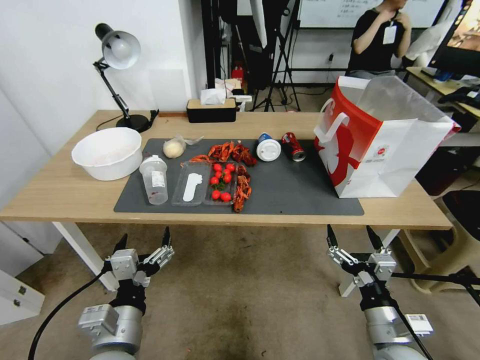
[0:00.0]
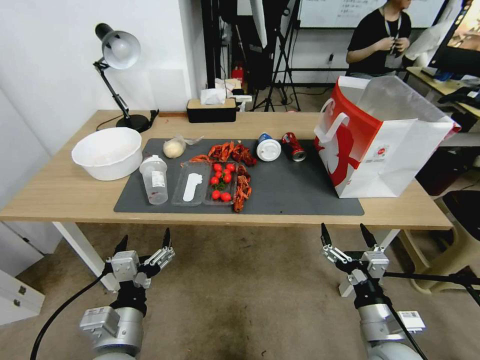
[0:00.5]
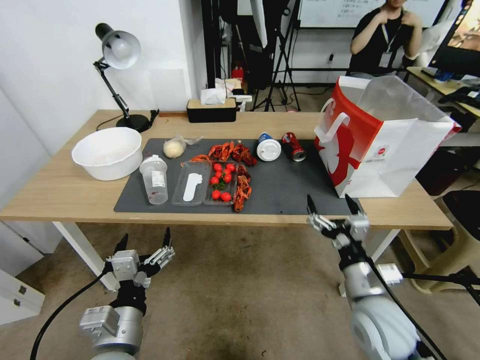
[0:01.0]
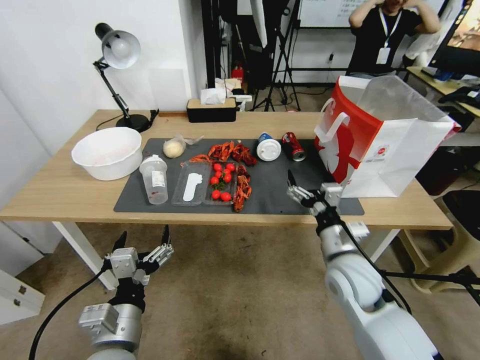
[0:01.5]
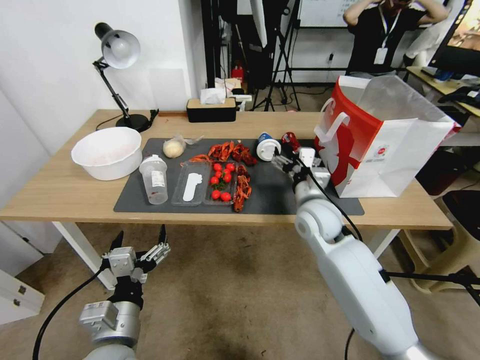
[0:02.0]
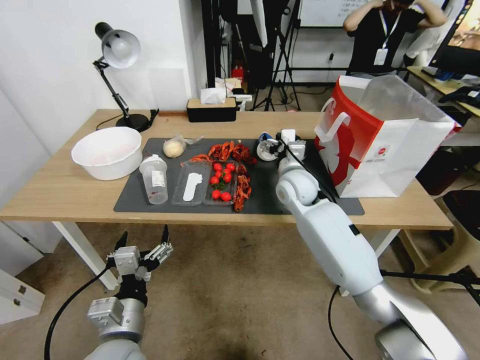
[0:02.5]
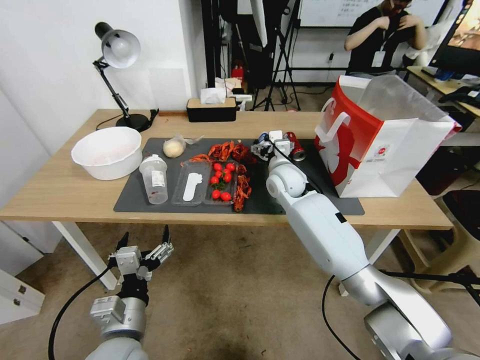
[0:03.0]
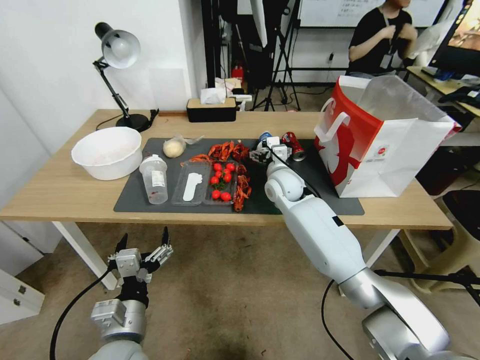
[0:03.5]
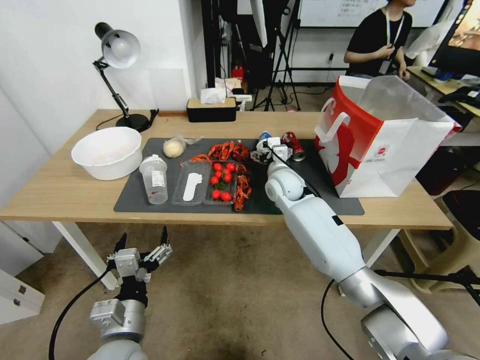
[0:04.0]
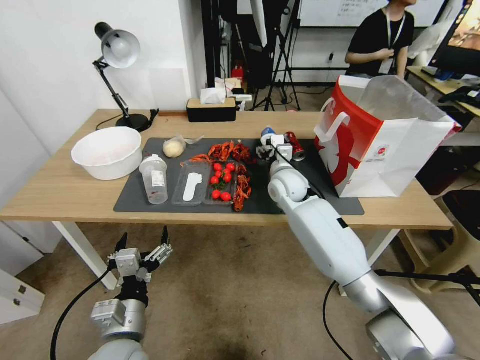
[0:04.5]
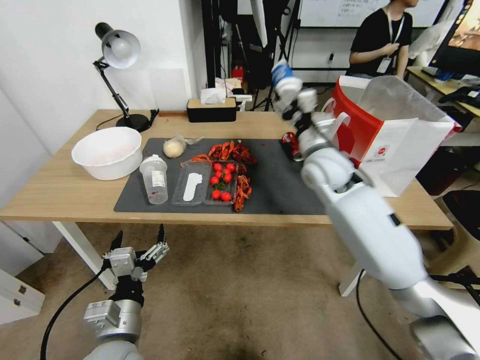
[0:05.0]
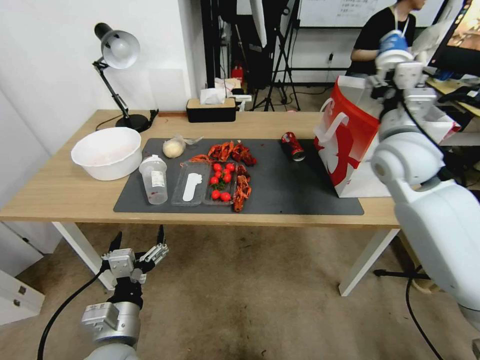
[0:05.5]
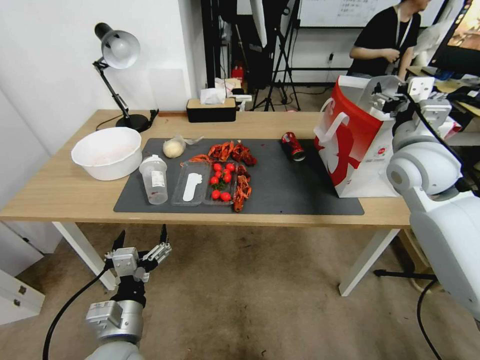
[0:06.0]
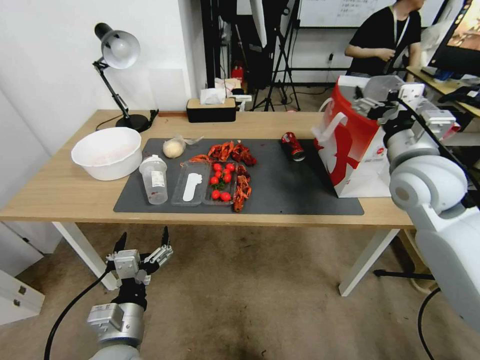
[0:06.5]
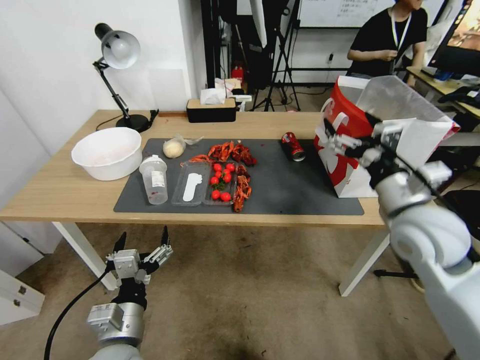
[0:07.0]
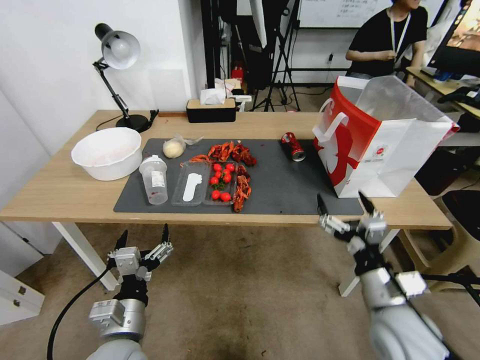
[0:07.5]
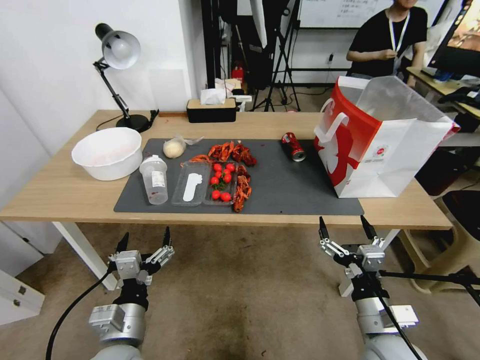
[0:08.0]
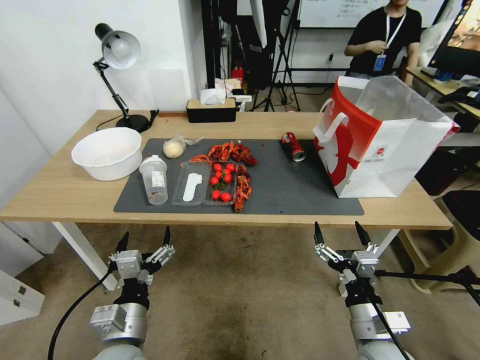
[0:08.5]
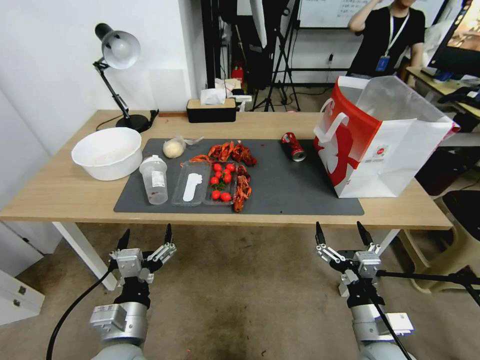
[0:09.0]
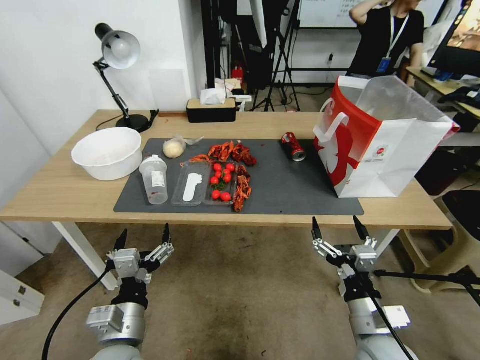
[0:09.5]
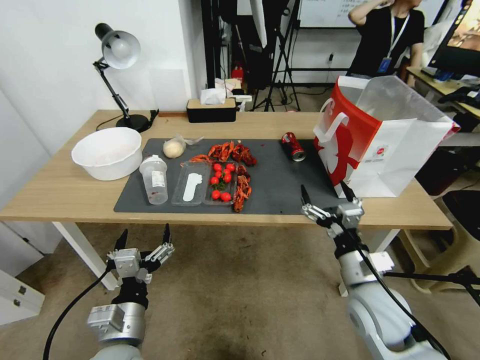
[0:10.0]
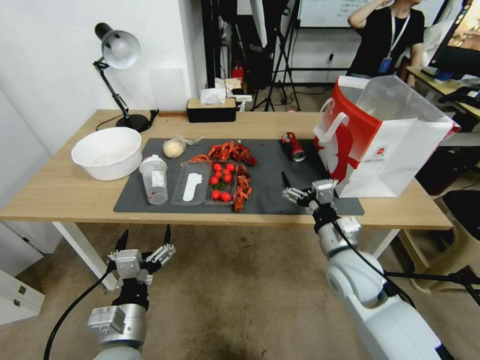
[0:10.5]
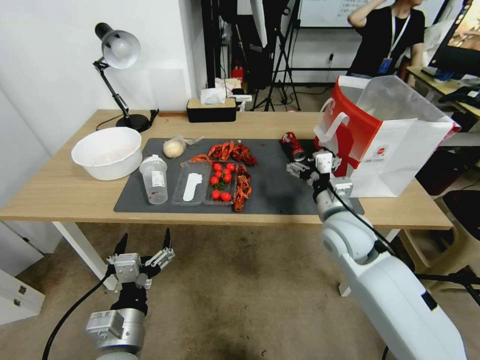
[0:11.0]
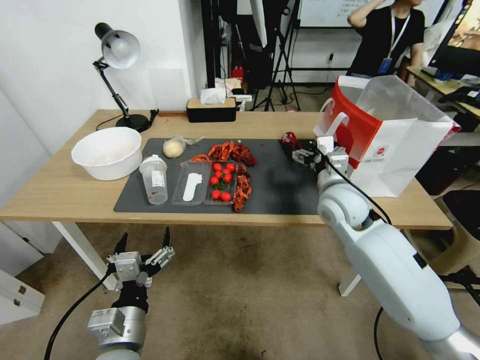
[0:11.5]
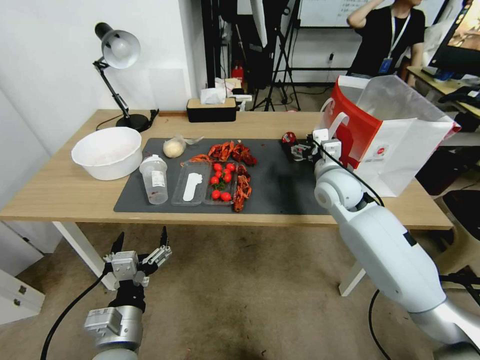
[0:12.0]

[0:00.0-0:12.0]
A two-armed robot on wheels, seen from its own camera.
0:00.0 to 0:02.0: The right gripper moves forward and to the left, approximately 20 cm.
0:02.0 to 0:04.0: The right gripper goes some 20 cm forward and to the left.
0:04.0 to 0:06.0: The right gripper moves to the right, upward and backward, about 30 cm.
0:06.0 to 0:08.0: The right gripper goes some 35 cm backward and downward.
0:08.0 to 0:10.0: The right gripper travels forward by some 5 cm.
0:10.0 to 0:12.0: The right gripper heads forward and upward, covering about 25 cm.

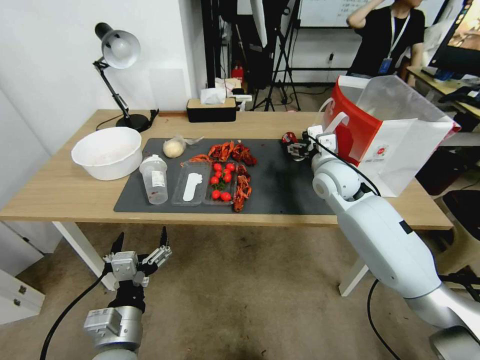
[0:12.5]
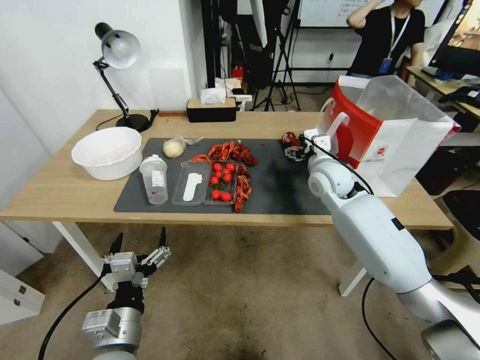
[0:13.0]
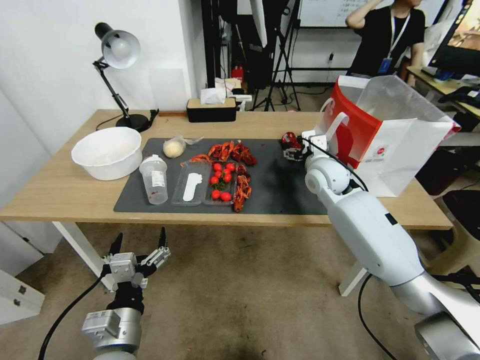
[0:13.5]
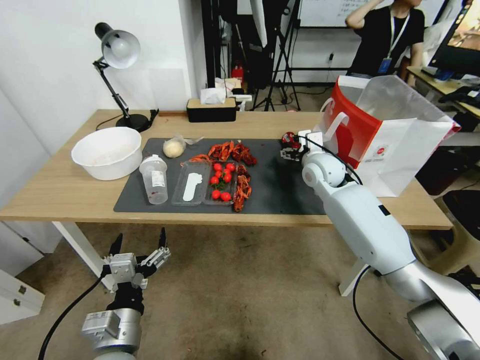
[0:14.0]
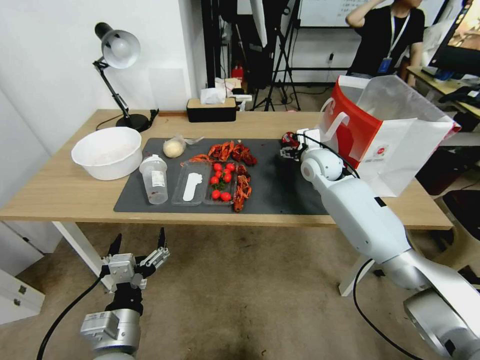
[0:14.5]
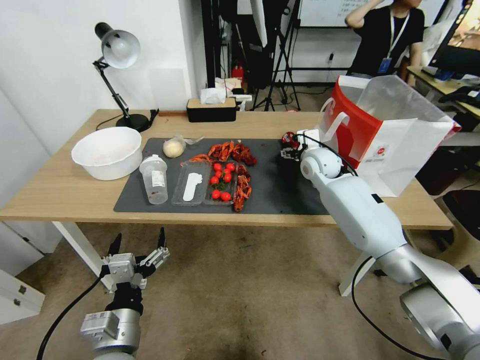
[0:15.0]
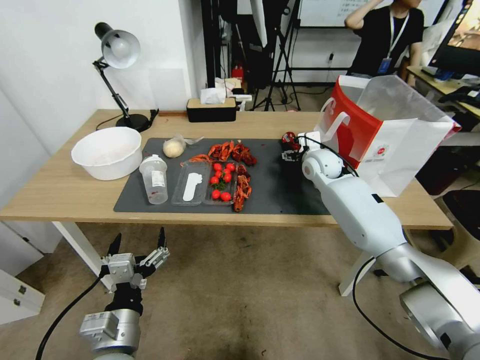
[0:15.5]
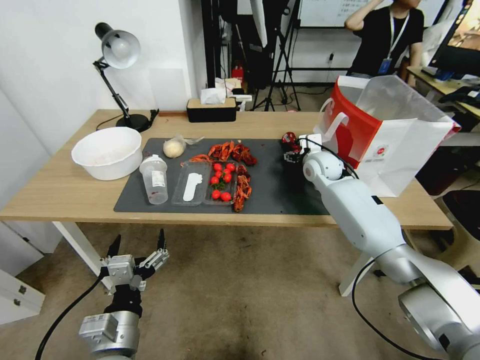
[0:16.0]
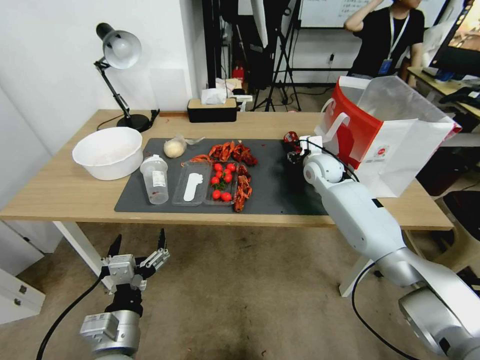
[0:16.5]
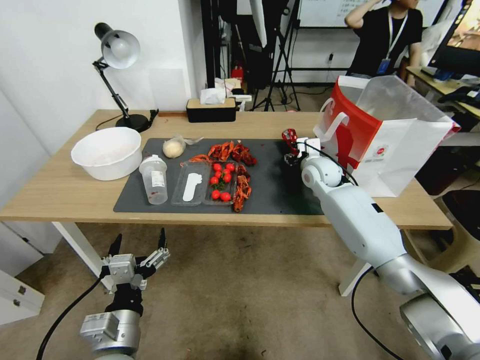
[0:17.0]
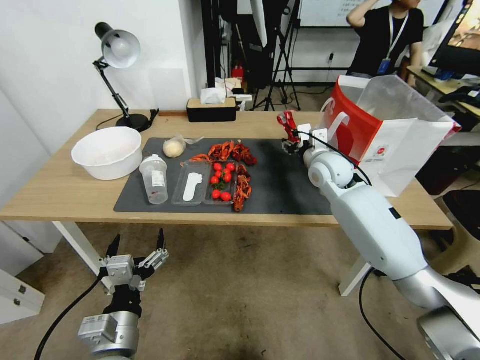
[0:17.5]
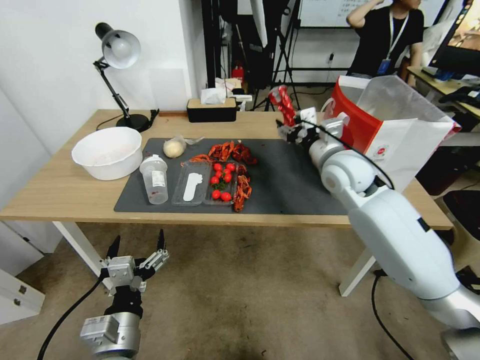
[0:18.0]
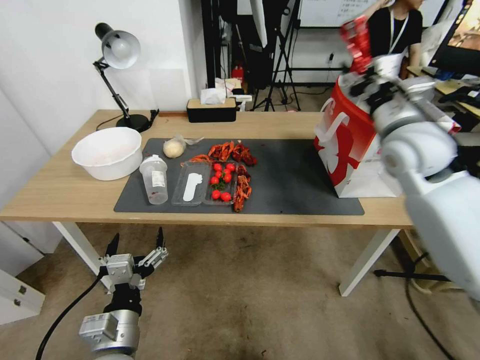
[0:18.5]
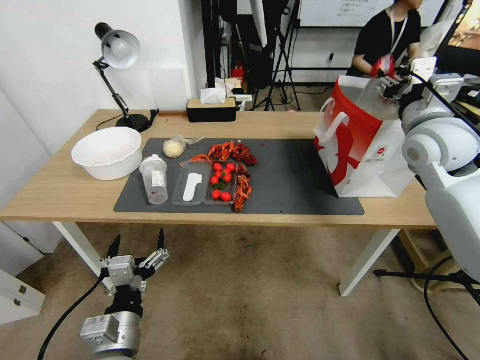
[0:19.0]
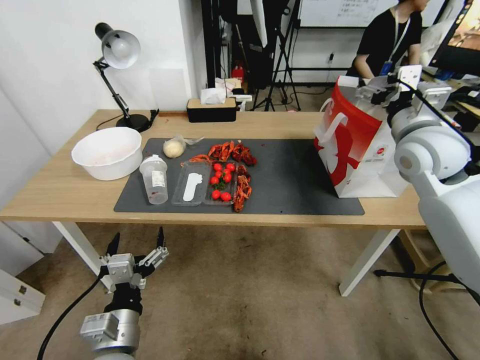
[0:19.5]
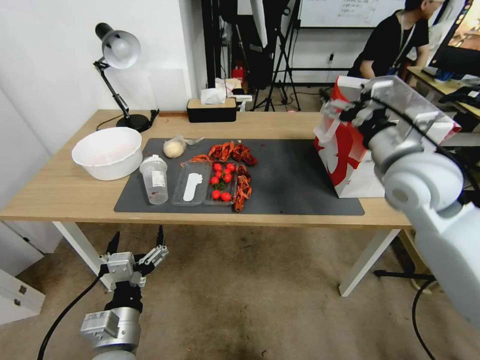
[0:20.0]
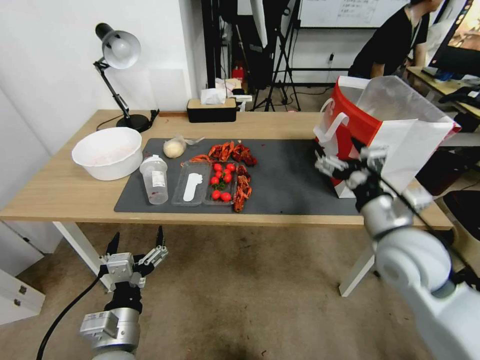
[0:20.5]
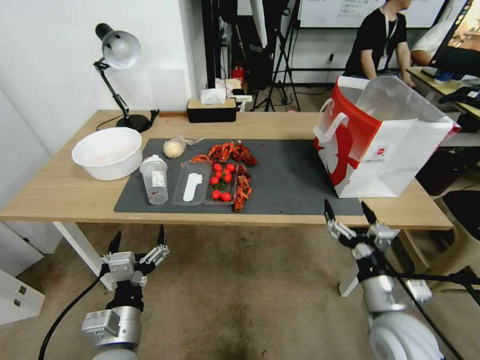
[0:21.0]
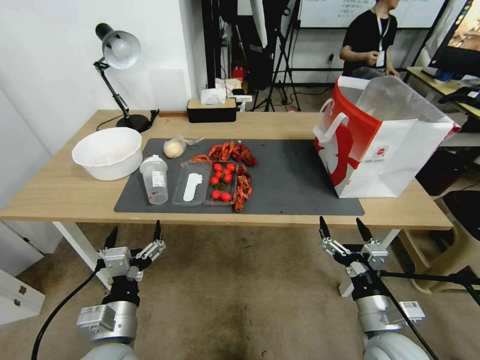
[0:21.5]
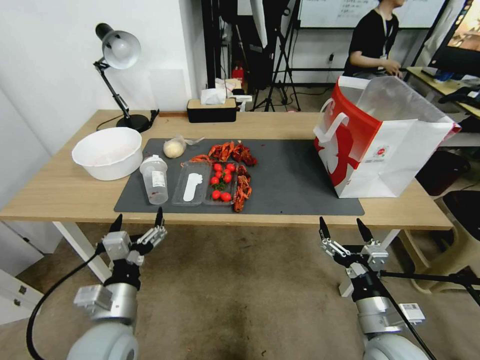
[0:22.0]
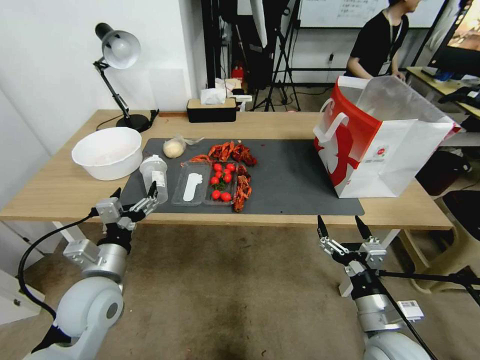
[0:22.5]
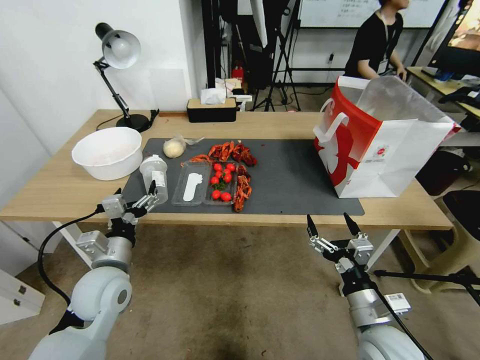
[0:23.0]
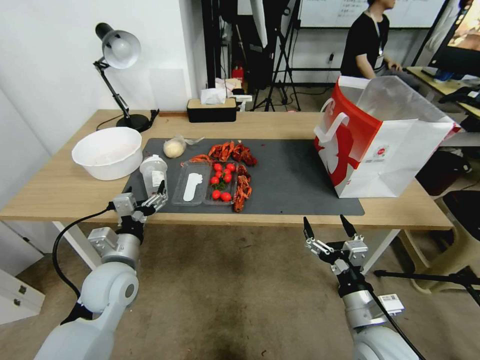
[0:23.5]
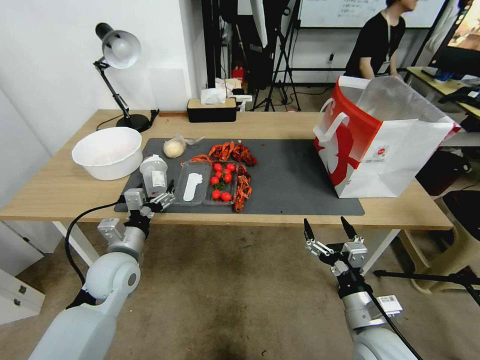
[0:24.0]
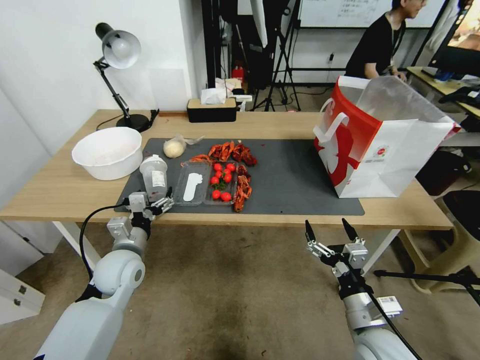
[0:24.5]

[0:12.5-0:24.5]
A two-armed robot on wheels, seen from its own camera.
0:12.5 to 0:14.5: The right gripper shifts approximately 10 cm forward.
0:14.5 to 0:16.5: The right gripper closes its fingers.
0:16.5 to 0:18.5: The right gripper goes about 25 cm upward and backward.
0:18.5 to 0:20.5: The right gripper heads backward and downward, covering roughly 20 cm, and opens up.
0:20.5 to 0:22.5: The right gripper goes about 20 cm downward and backward; the left gripper moves forward and to the left, about 10 cm.
0:22.5 to 0:24.5: The left gripper travels forward and downward by some 10 cm.

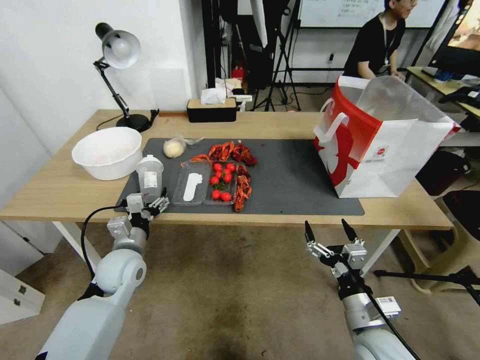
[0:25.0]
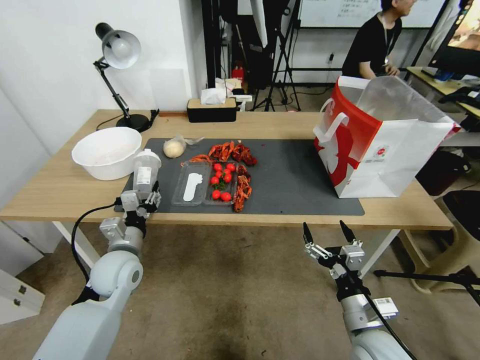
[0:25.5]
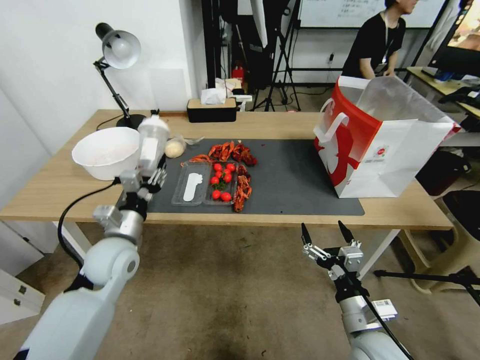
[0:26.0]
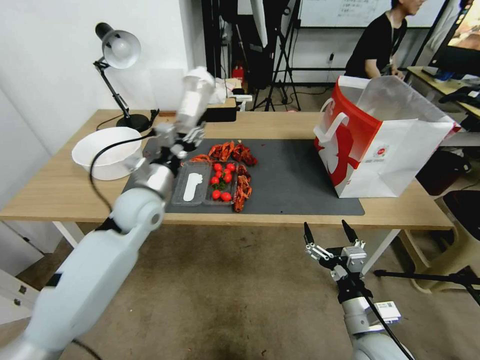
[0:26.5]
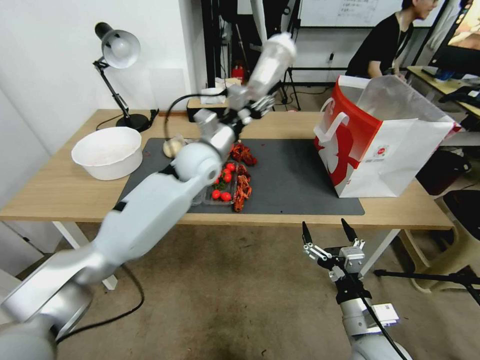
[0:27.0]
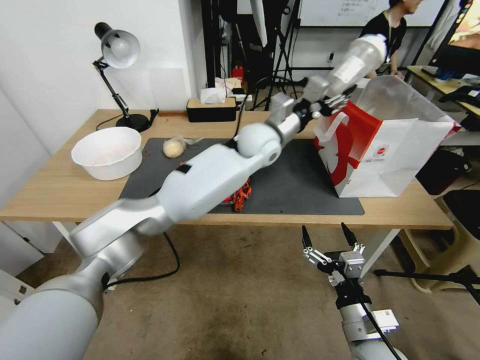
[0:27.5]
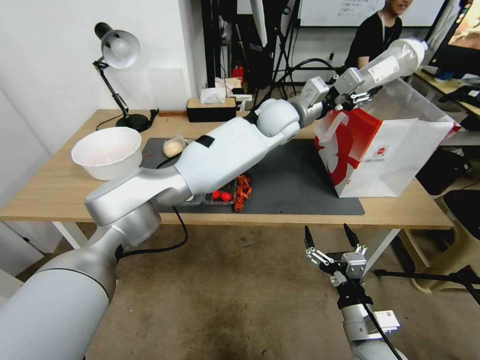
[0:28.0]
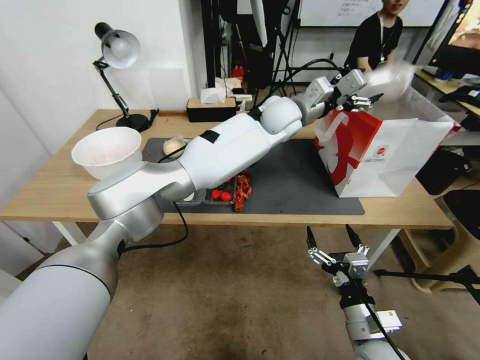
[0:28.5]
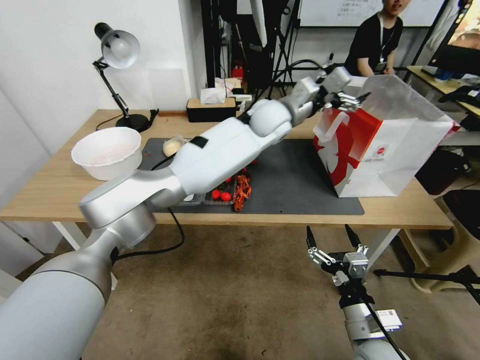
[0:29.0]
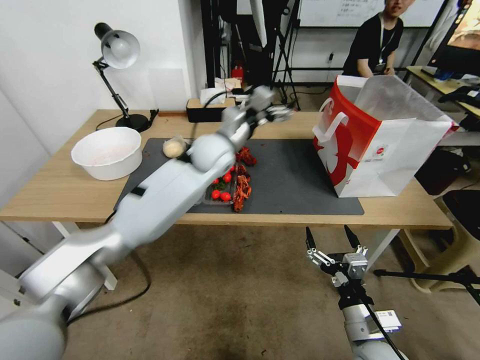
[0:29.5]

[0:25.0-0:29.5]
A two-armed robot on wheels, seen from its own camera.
0:25.0 to 0:27.0: The left gripper travels upward, to the right and forward by some 30 cm, and closes up.
0:27.0 to 0:29.5: The left gripper travels to the right and back again, approximately 20 cm each way, and opens up.
